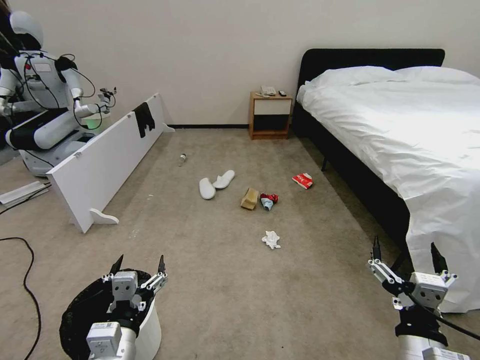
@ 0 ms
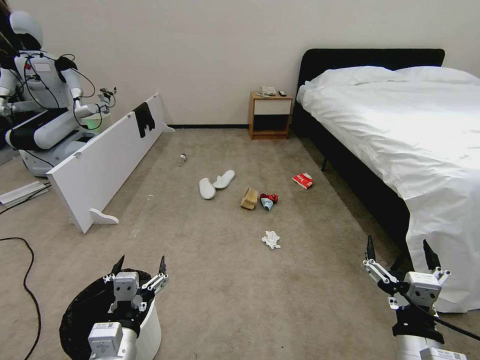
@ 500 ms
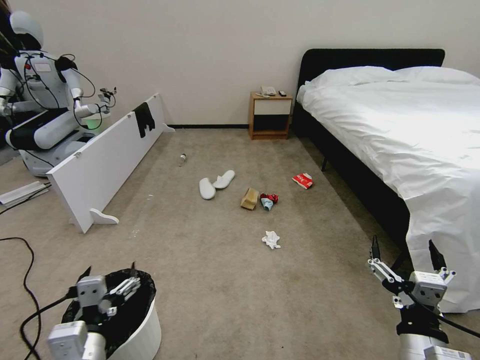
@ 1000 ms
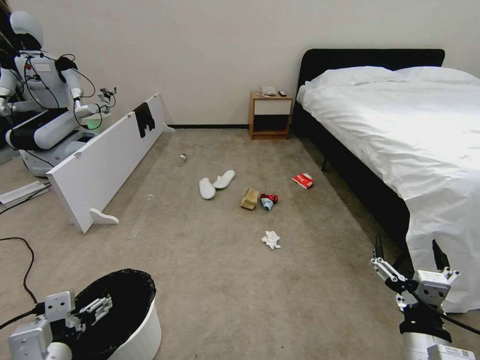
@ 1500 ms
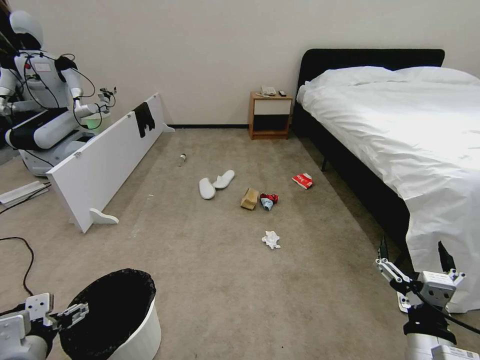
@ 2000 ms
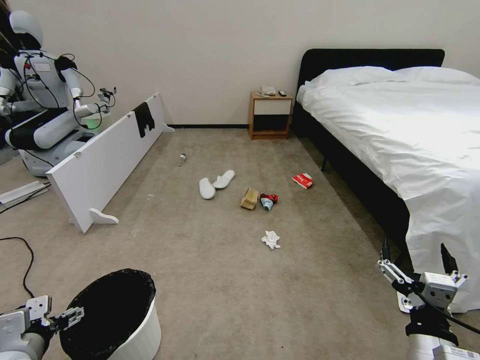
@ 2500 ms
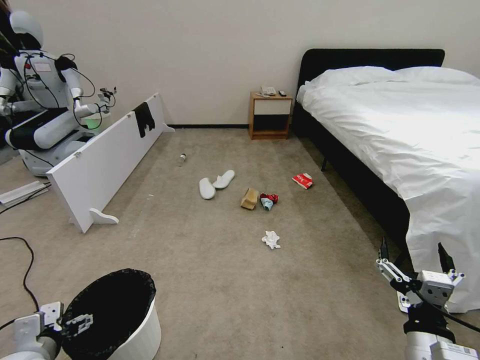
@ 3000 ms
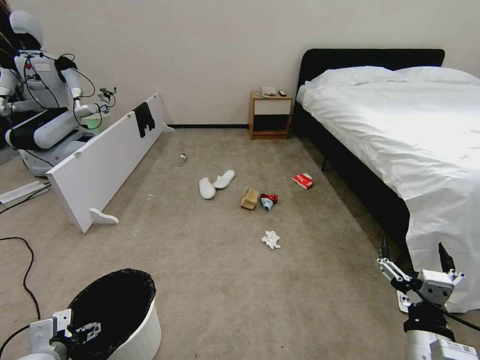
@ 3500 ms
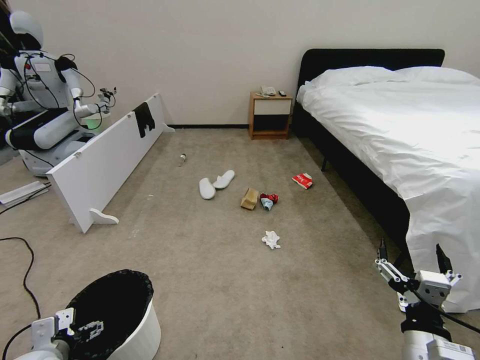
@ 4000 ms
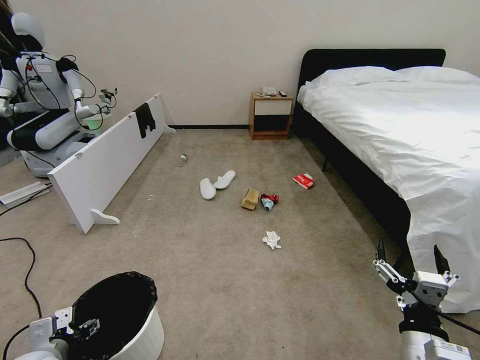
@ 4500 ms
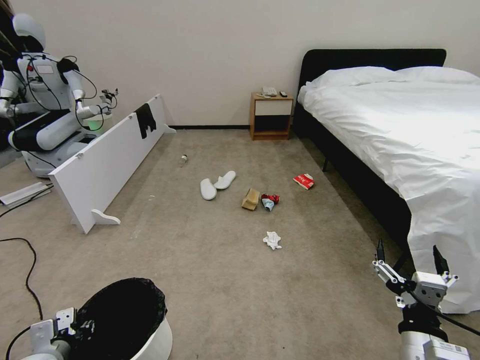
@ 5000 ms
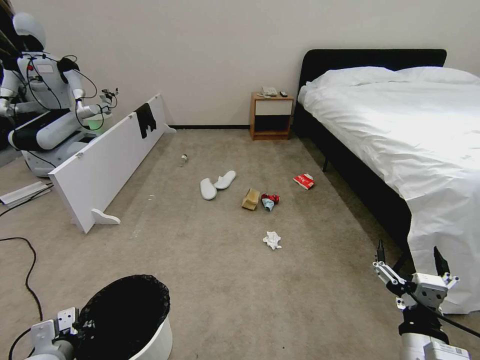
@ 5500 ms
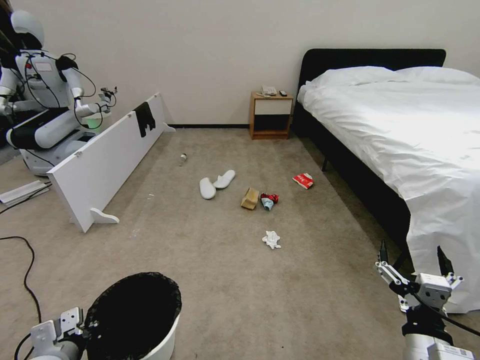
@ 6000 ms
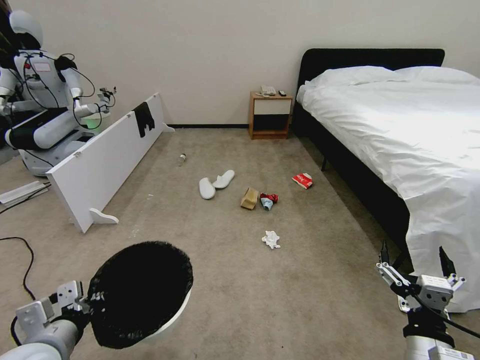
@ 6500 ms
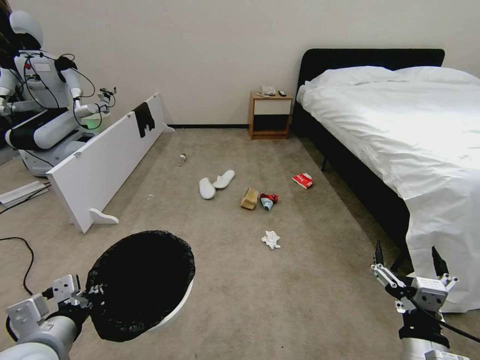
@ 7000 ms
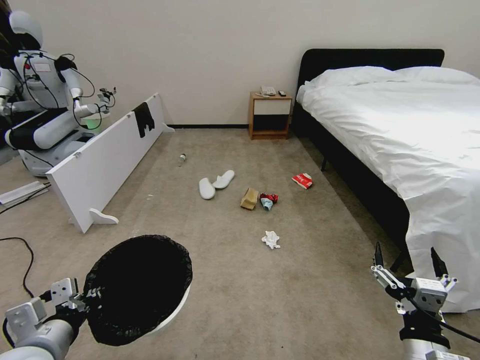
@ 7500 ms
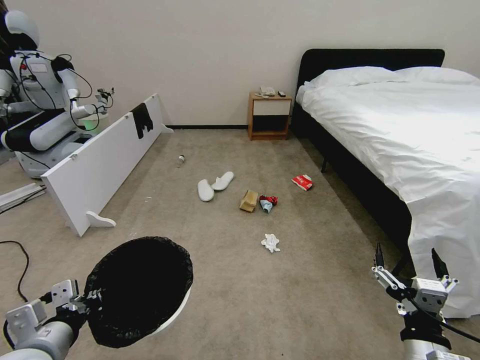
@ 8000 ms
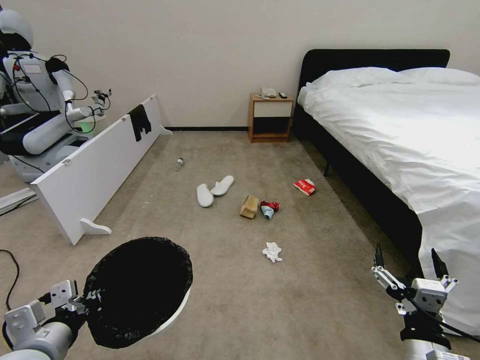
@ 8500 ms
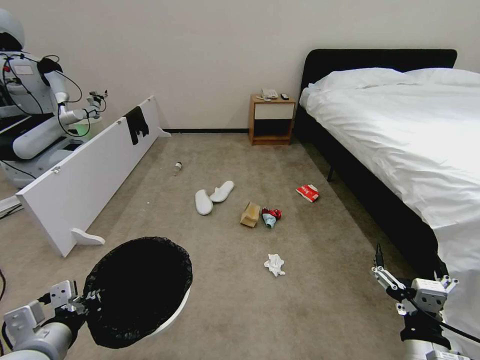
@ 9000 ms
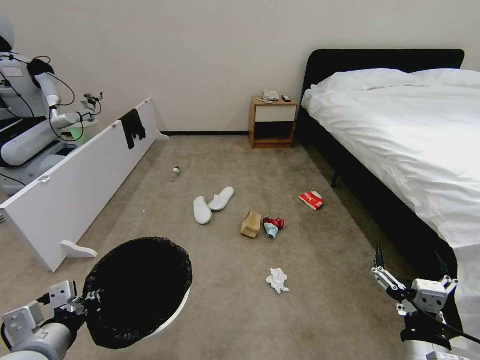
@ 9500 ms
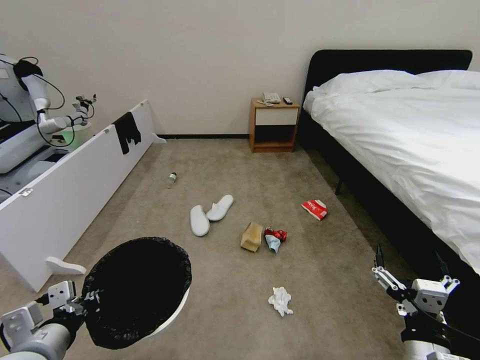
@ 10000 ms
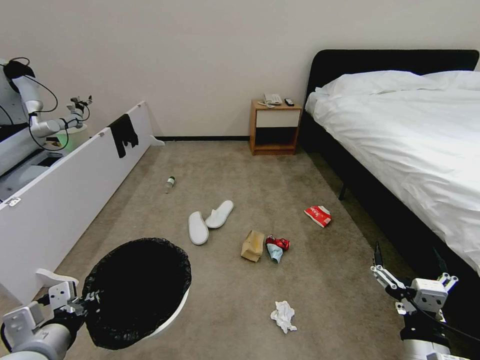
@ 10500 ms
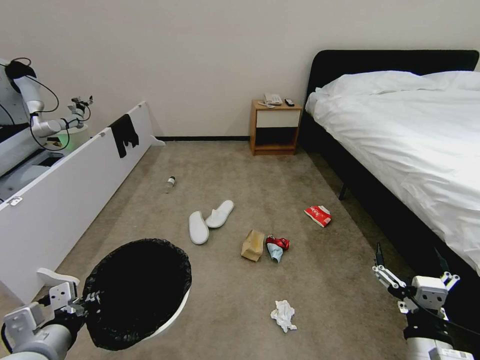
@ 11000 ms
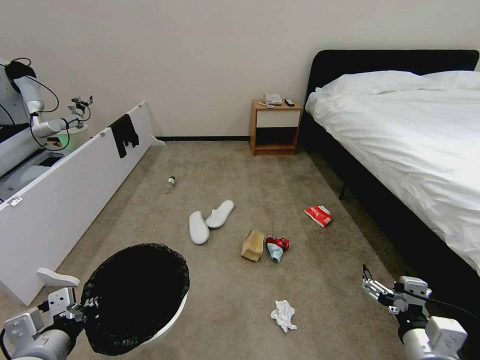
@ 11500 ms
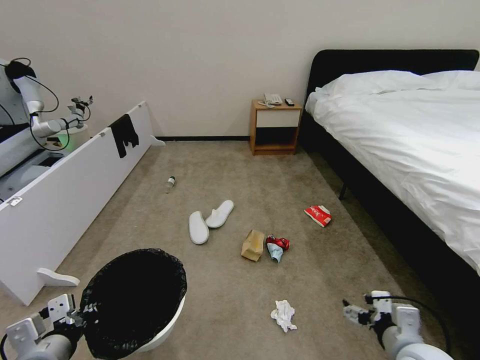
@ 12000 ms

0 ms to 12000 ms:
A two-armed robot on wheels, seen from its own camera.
Task of the whole recording: Pick up the trash bin, then pick up the garbage from the floor and place it into the trash bin.
2000 ms to 4000 ms: The left gripper is displaced downward by approximately 10 cm.
4000 ms to 6000 ms: The left gripper closes its fingers.
6000 ms to 8000 ms: The left gripper moves upward, some 10 cm.
10000 ms to 12000 ms: The right gripper is displaced forward by approximately 5 cm.

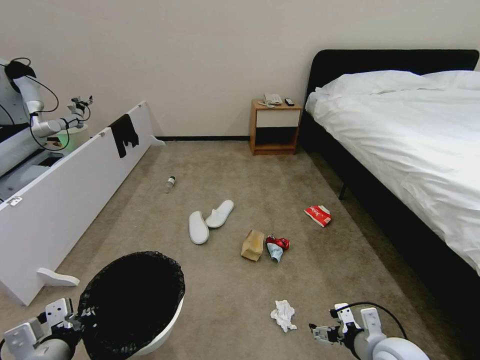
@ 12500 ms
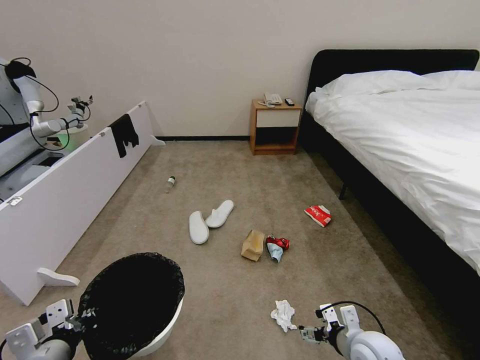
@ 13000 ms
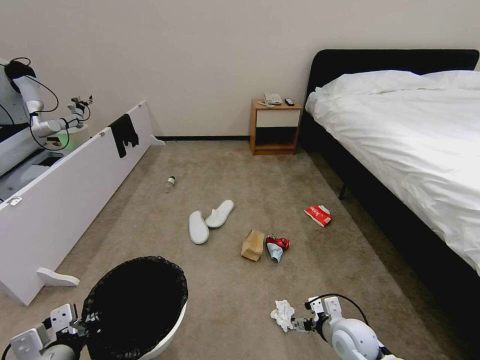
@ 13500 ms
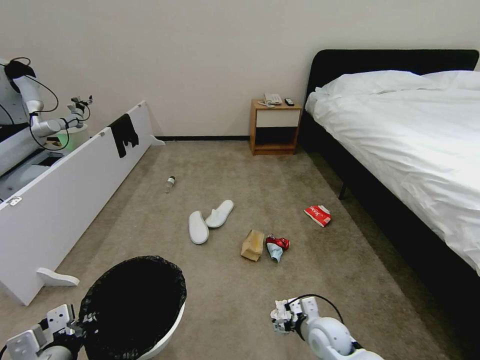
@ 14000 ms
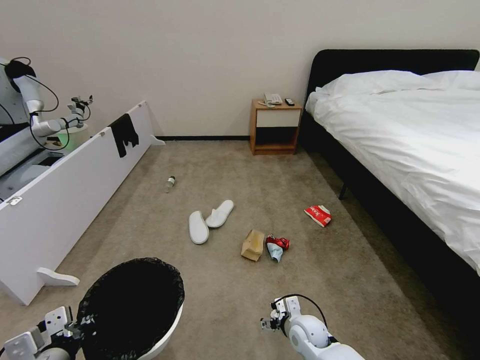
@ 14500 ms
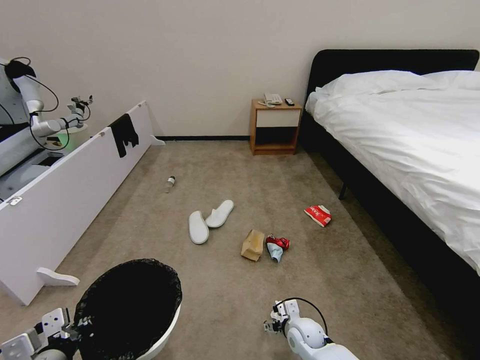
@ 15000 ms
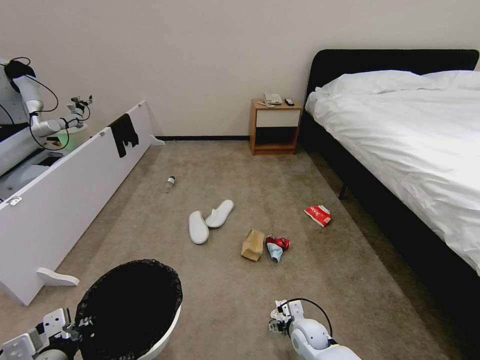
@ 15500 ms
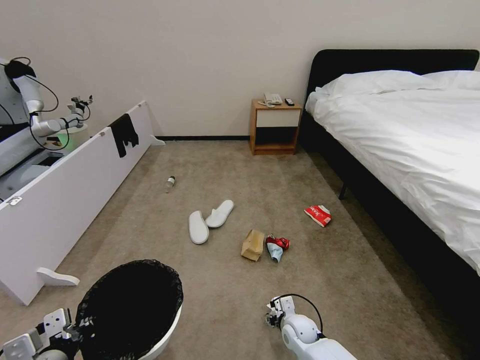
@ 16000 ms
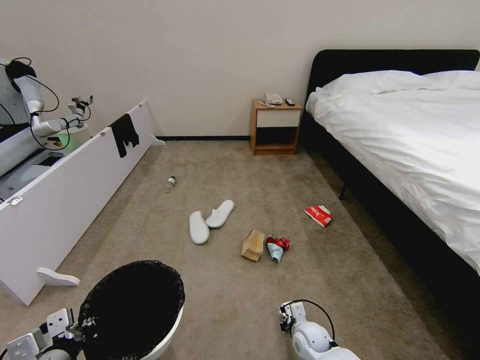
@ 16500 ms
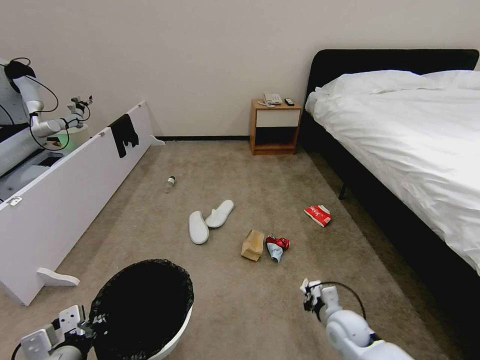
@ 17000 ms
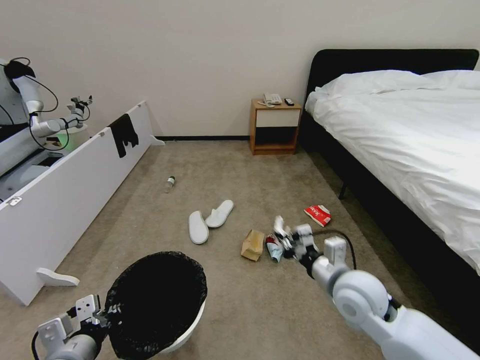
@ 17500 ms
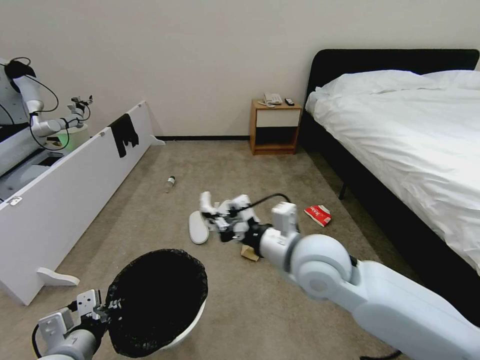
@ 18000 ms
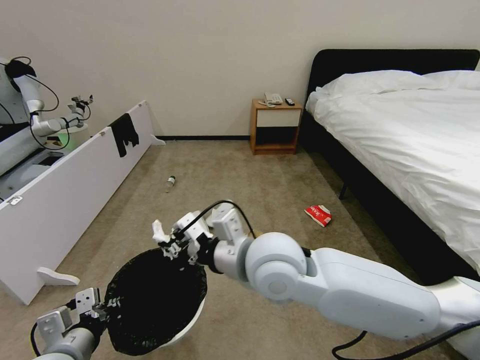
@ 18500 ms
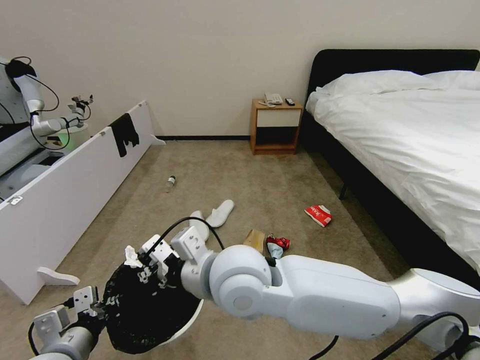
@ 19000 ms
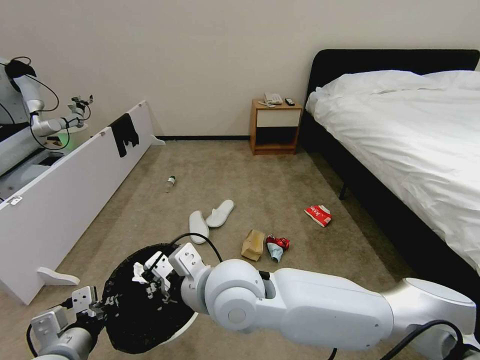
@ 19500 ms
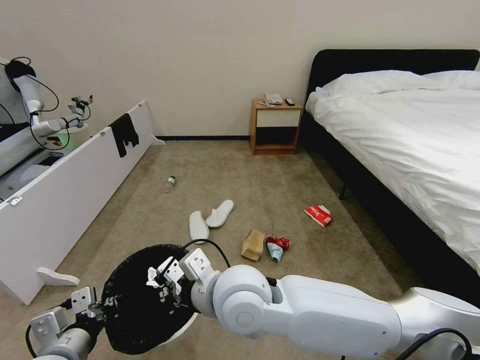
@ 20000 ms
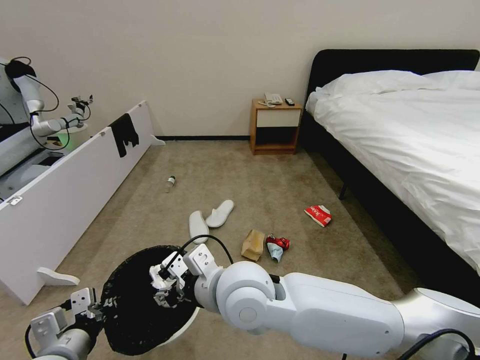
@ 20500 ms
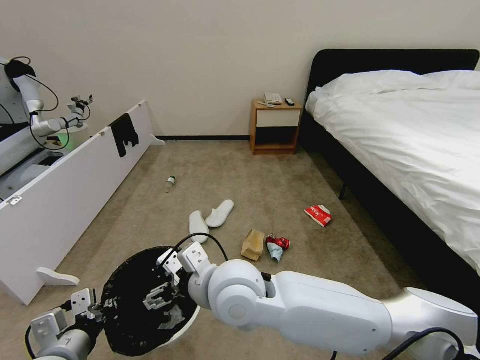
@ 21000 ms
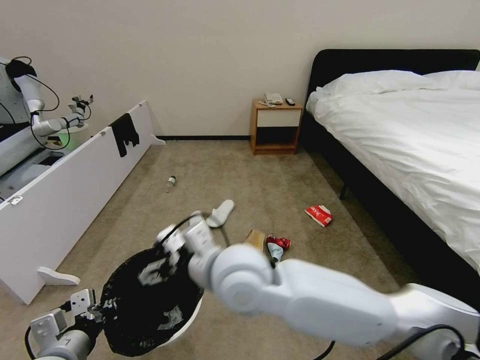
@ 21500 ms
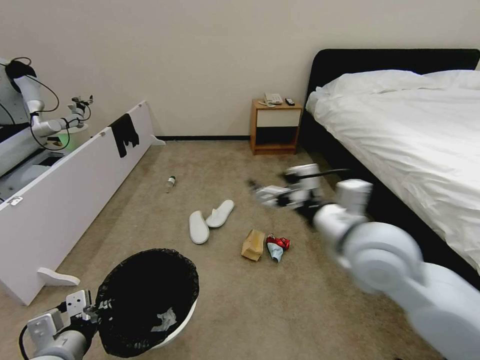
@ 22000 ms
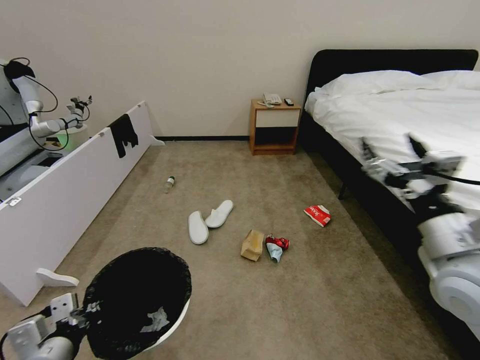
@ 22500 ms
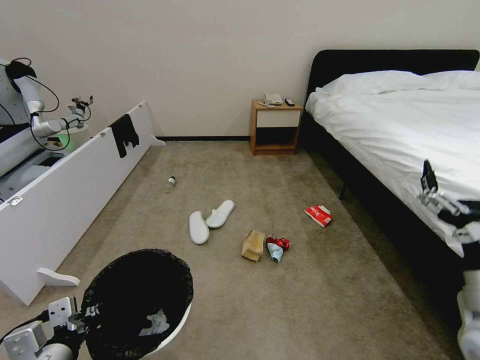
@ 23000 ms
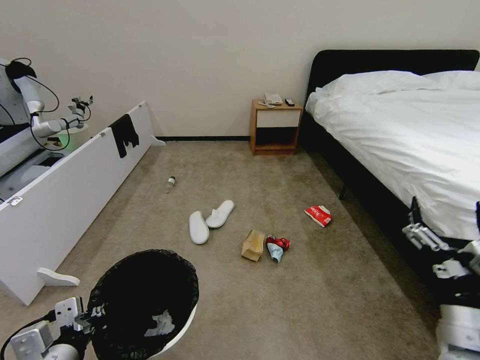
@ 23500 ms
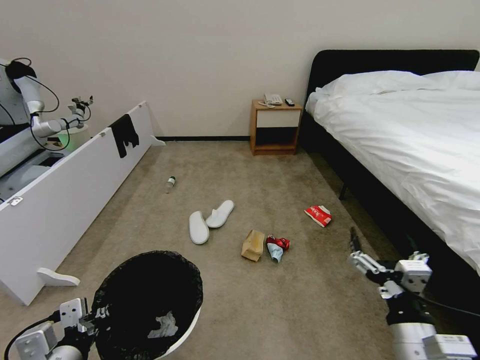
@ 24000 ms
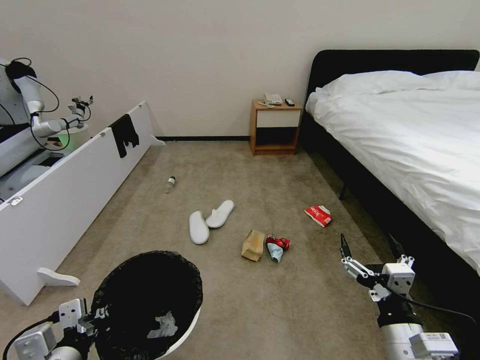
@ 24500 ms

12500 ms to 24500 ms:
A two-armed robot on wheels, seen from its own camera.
Task of the whole recording: Pick up the trash bin, then pick up the garbage from the floor and place it into the trash bin.
12500 ms to 14500 ms: The right gripper is displaced downward, to the left and forward by roughly 25 cm.
14500 ms to 16500 ms: The right gripper closes up.
16500 ms to 18500 ms: The right gripper goes some 40 cm upward.
18500 ms to 20500 ms: The right gripper is displaced to the left by some 5 cm, and opens.
20500 ms to 22500 ms: The right gripper is displaced to the right by roughly 35 cm, and opens up.
22500 ms to 24500 ms: The right gripper goes roughly 20 cm downward and backward.

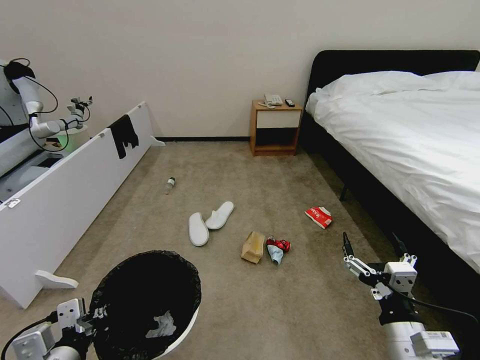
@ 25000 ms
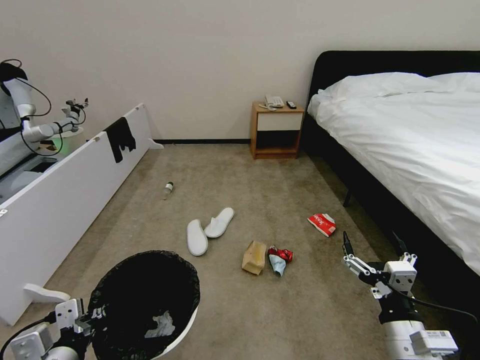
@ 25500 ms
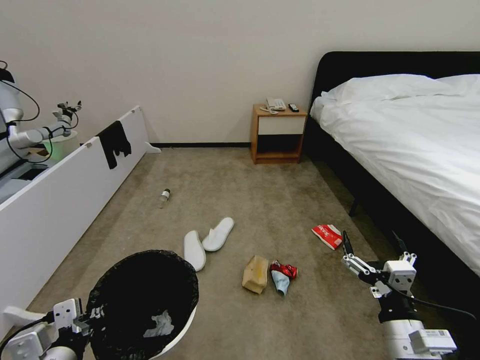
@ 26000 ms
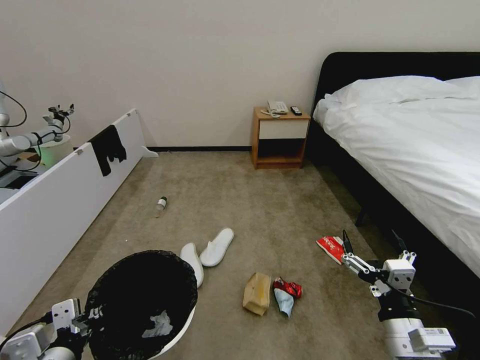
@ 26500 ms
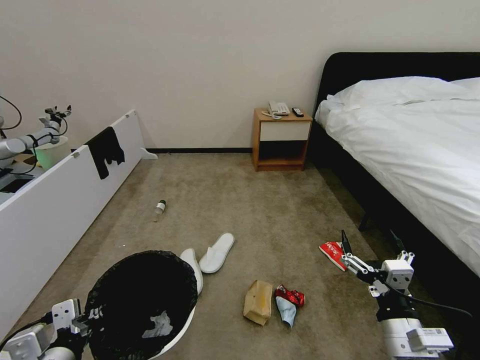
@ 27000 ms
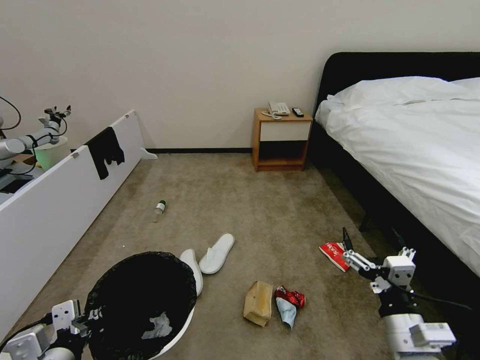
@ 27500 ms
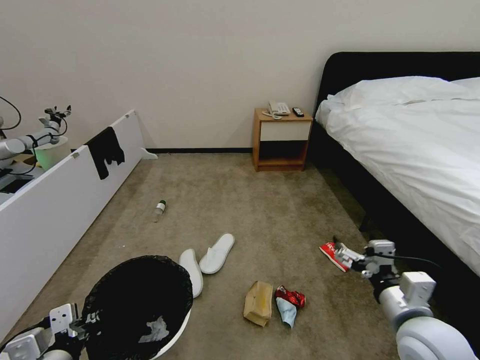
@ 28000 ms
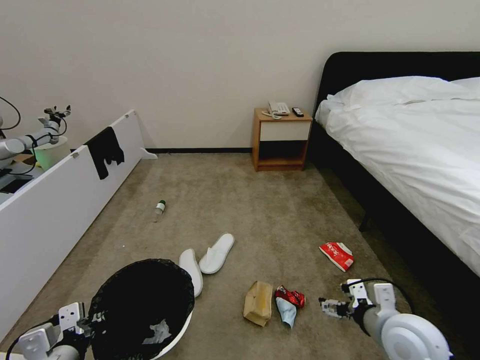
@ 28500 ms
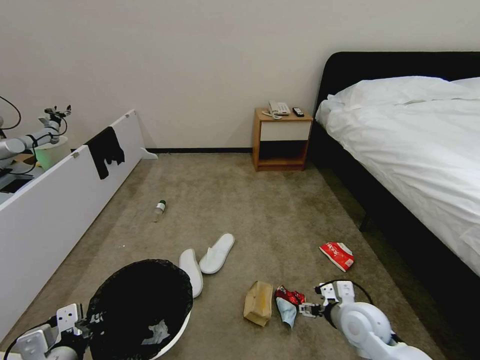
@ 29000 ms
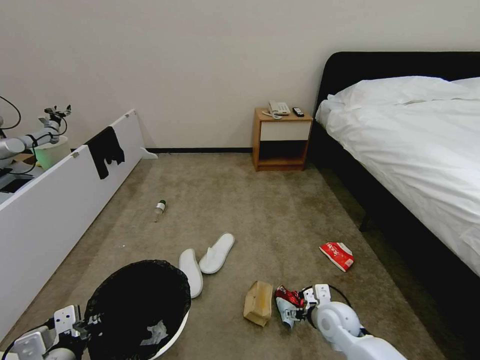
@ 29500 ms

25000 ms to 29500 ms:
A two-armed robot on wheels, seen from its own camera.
Task of the whole recording: Pick up the trash bin, then pick up the garbage from the floor and place it into the trash bin.
27000 ms to 29500 ms: The right gripper moves forward and downward, about 20 cm.
